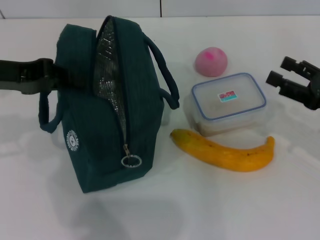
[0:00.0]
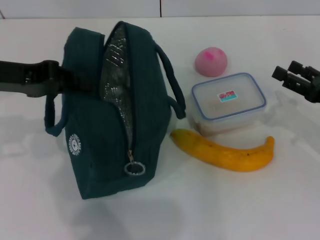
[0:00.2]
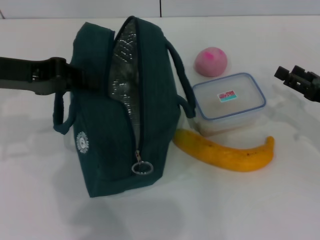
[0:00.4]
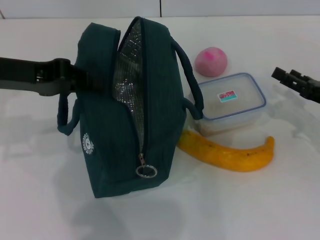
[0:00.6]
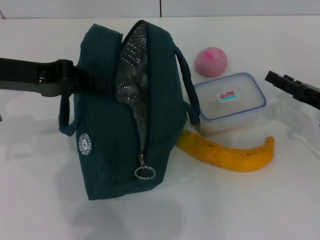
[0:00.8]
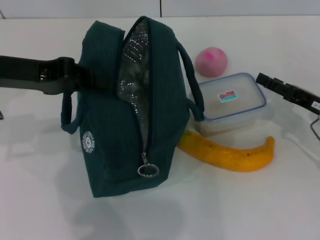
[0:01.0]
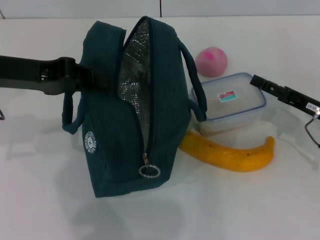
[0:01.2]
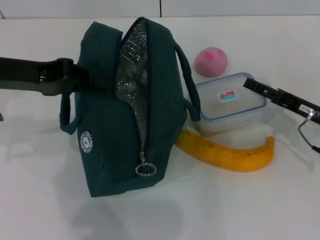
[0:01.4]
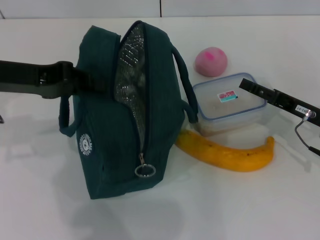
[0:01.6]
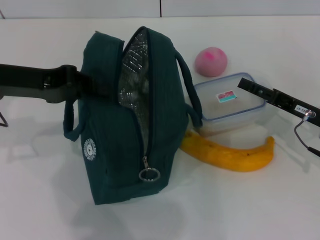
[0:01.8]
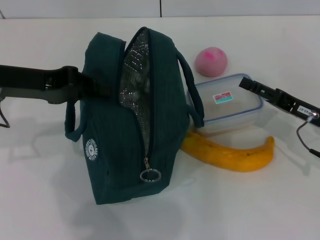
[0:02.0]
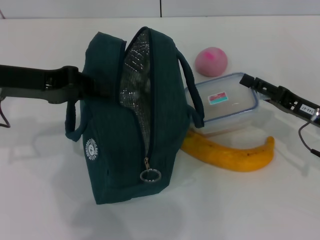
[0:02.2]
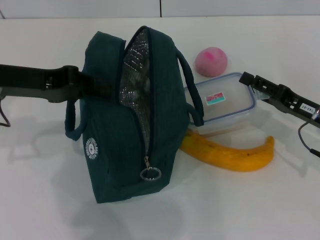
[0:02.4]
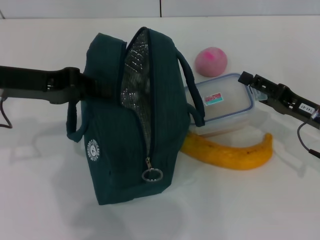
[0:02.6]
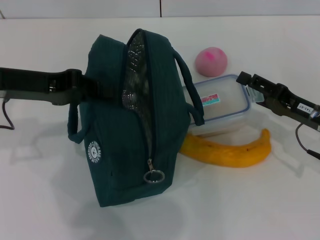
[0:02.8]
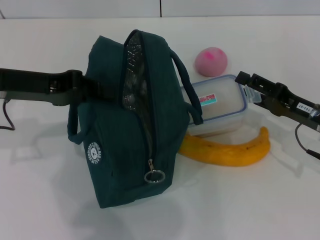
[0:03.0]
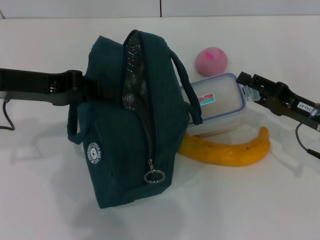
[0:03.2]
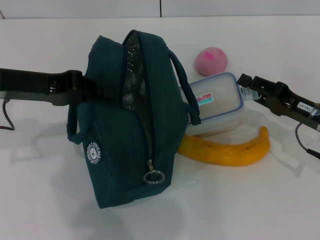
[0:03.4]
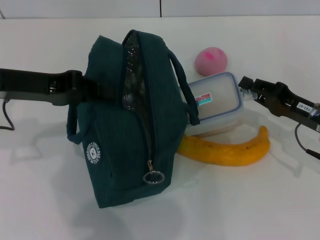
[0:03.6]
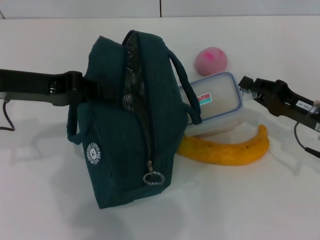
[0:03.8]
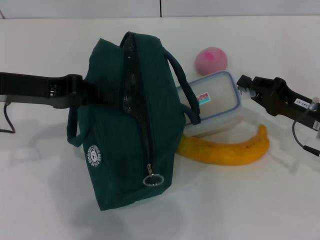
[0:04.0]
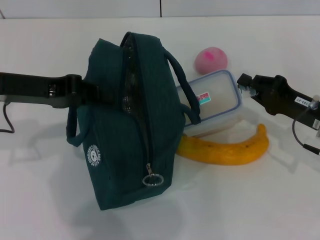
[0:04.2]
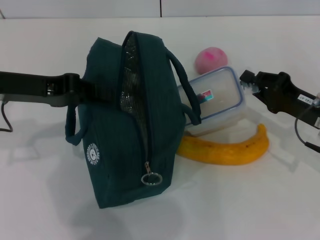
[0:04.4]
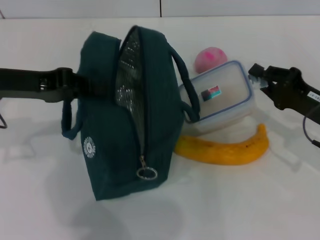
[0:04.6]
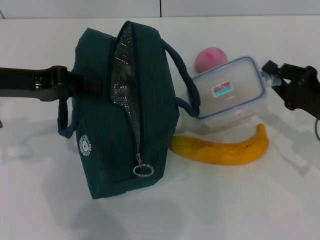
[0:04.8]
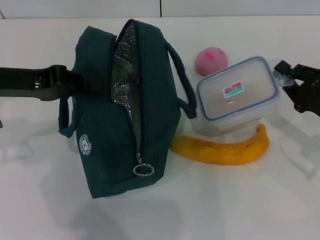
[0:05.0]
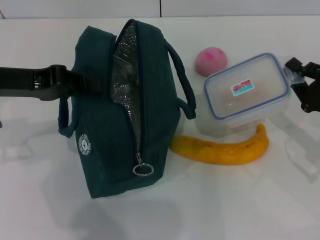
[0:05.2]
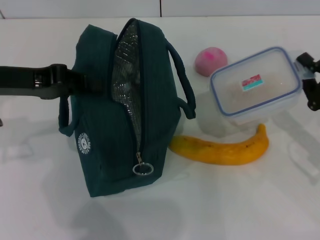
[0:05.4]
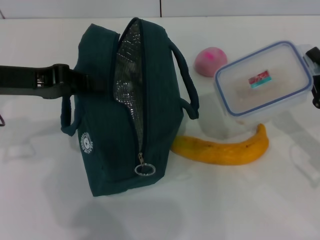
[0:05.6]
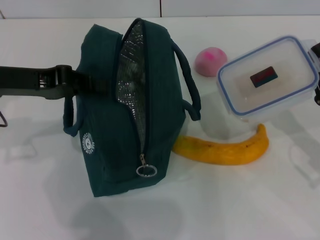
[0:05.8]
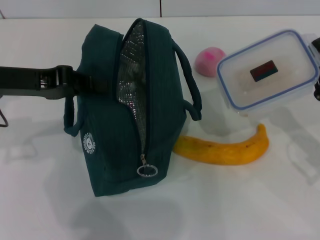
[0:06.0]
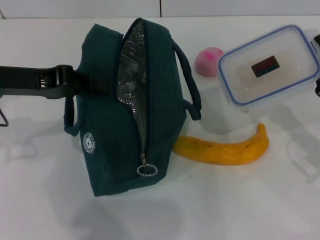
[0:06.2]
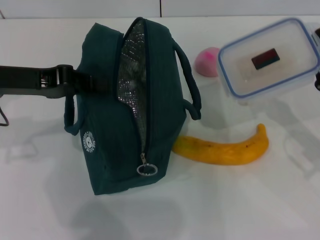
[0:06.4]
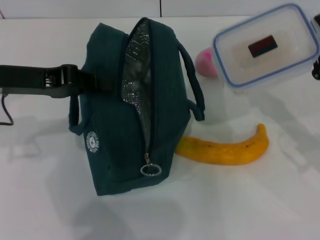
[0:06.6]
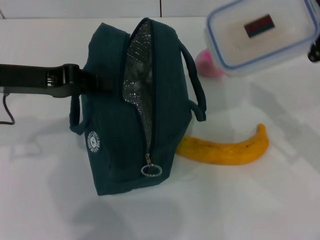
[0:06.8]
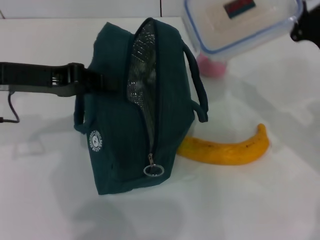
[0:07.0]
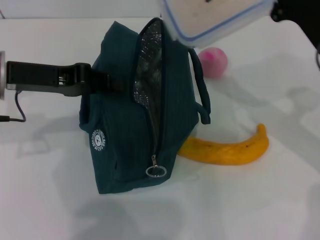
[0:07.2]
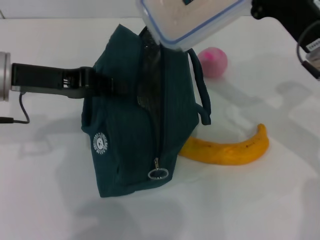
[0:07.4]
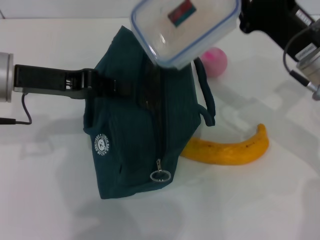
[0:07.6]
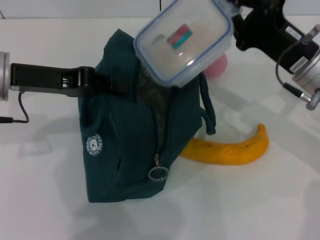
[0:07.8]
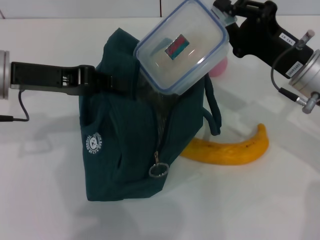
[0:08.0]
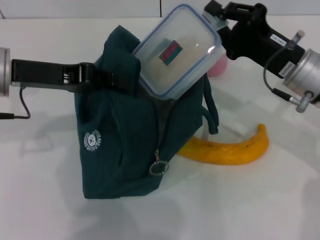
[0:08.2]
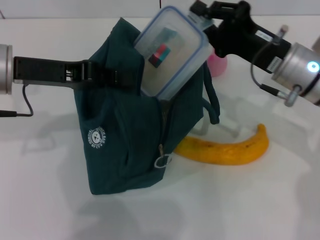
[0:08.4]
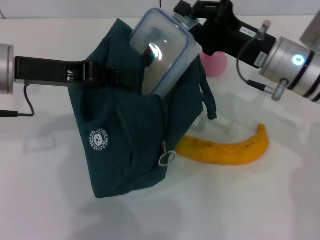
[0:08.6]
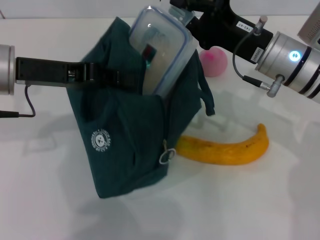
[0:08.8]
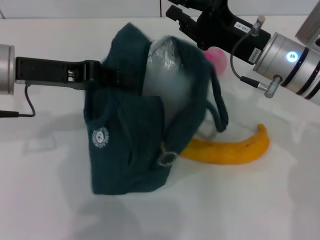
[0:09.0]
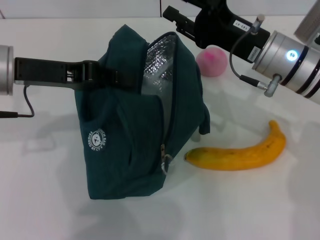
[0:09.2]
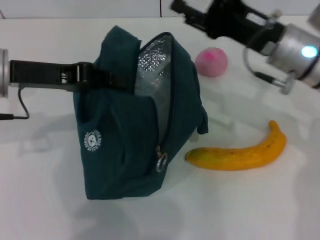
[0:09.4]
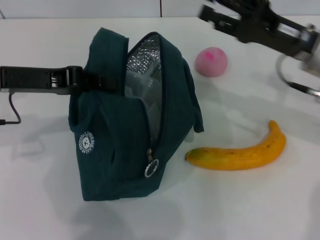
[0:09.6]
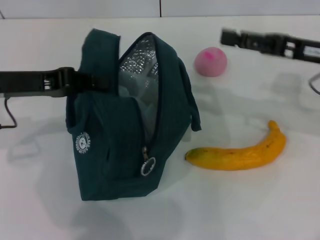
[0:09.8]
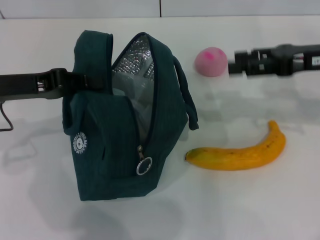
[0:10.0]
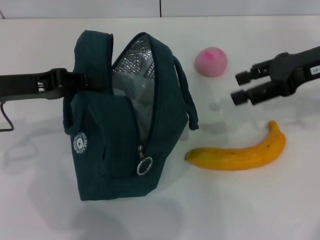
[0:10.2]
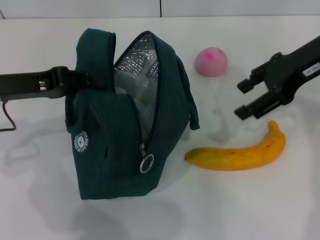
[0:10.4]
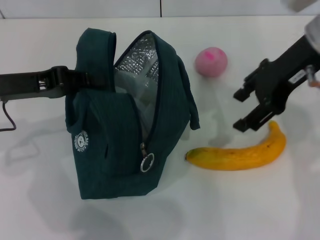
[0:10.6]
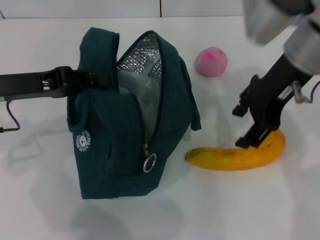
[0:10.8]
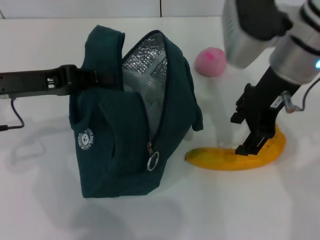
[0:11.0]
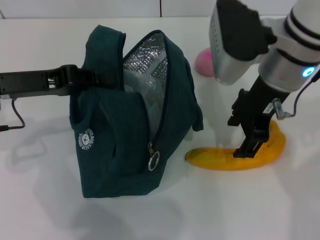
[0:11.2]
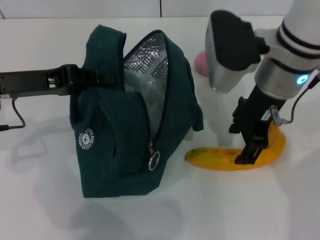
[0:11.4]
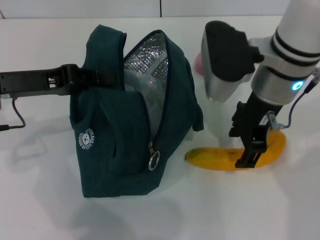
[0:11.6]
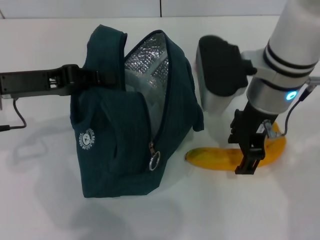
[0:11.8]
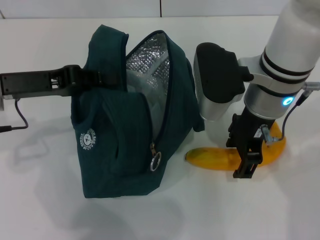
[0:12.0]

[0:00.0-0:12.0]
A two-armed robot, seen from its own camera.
Step, 0:01.0 to 0:04.0: Pick up the lunch box with your right hand.
Step, 0:04.2 to 0:09.2: Place the lunch box into the lunch bag with your right hand.
0:00.0 to 0:01.6: The right gripper changes place by about 5 cm.
0:01.6 to 0:03.0: The grippers stay close to where they were, moving slightly.
0:03.0 to 0:04.4: The right gripper closes.
0:04.4 to 0:06.0: The right gripper is displaced backward by approximately 5 cm.
0:06.0 to 0:07.6: The right gripper goes about 15 cm to the left, forward and upward.
0:07.6 to 0:09.0: The right gripper ends up approximately 5 cm from where it was.
0:09.0 to 0:10.4: The right gripper shifts approximately 10 cm upward and to the right, and opens up, while the left gripper shifts by roughly 5 cm.
0:10.4 to 0:12.0: The right gripper shifts about 15 cm to the left and downward.

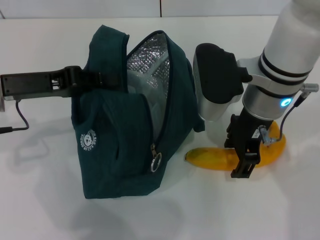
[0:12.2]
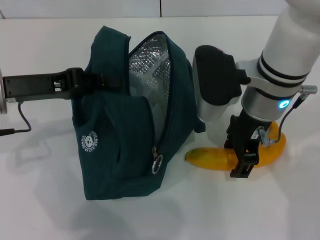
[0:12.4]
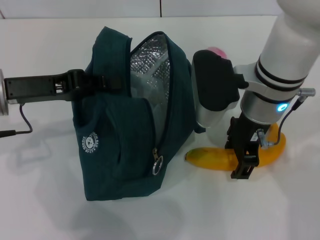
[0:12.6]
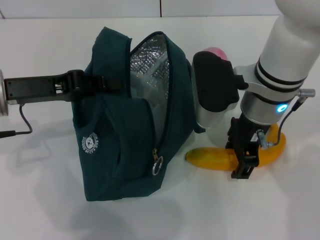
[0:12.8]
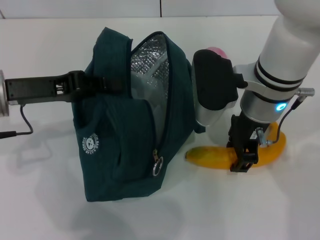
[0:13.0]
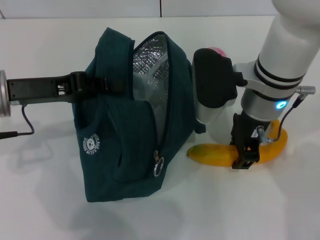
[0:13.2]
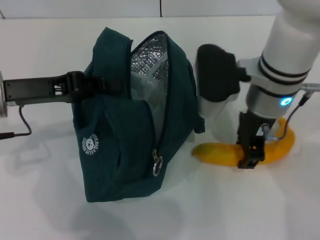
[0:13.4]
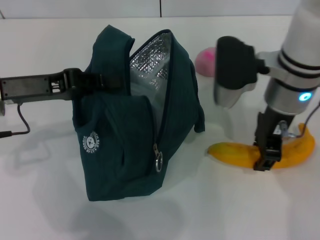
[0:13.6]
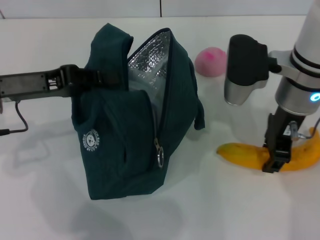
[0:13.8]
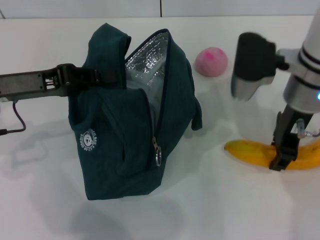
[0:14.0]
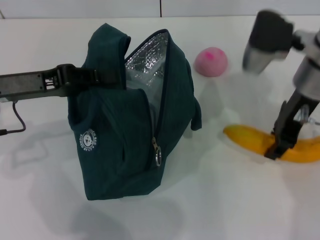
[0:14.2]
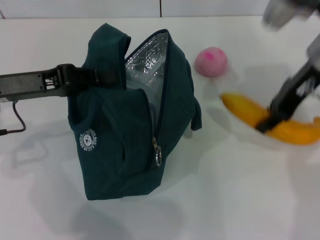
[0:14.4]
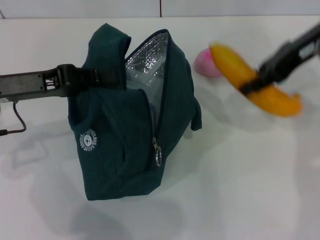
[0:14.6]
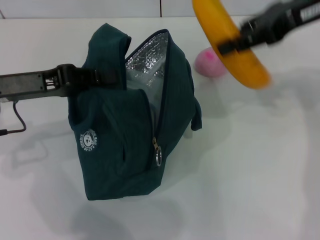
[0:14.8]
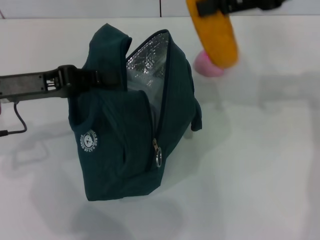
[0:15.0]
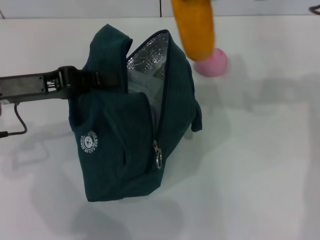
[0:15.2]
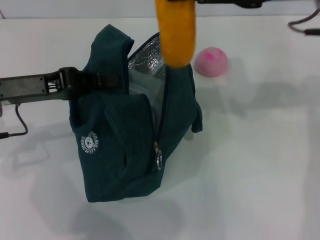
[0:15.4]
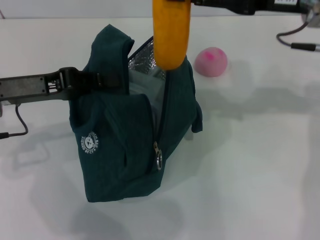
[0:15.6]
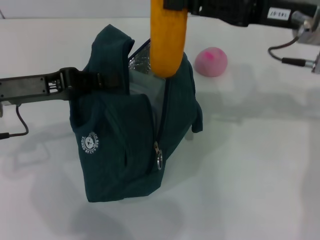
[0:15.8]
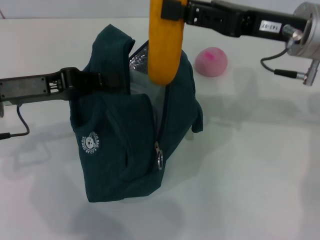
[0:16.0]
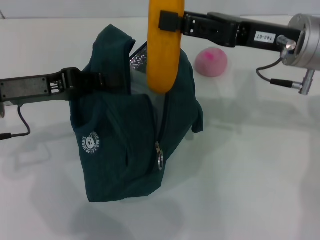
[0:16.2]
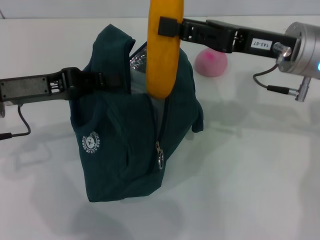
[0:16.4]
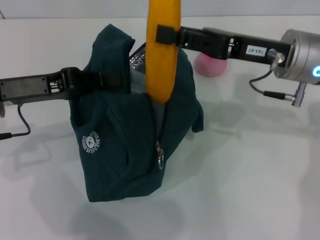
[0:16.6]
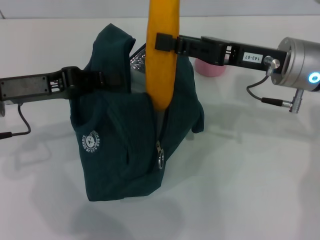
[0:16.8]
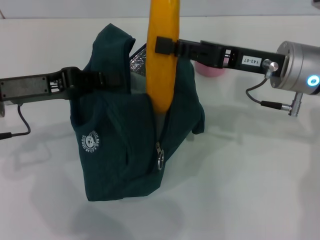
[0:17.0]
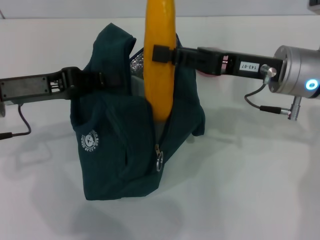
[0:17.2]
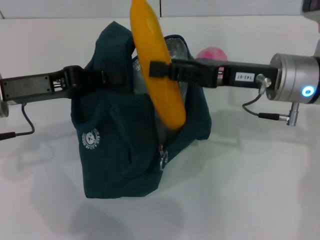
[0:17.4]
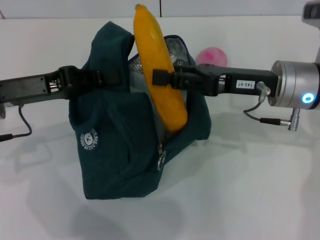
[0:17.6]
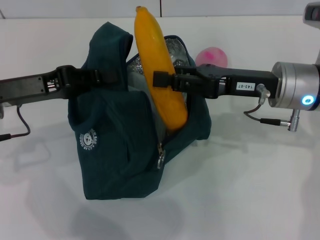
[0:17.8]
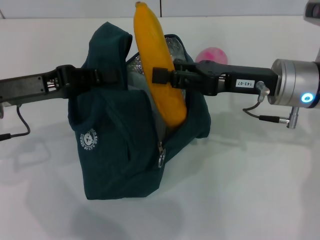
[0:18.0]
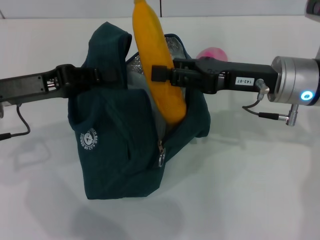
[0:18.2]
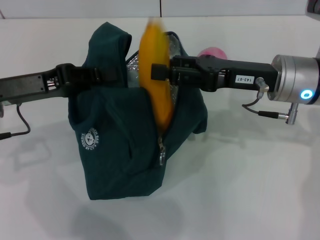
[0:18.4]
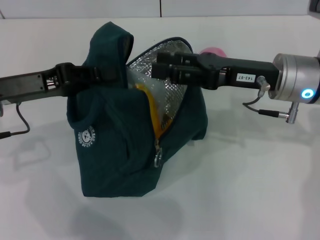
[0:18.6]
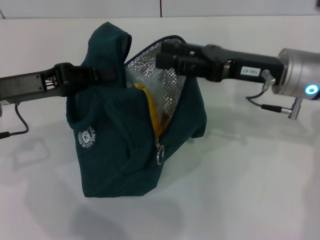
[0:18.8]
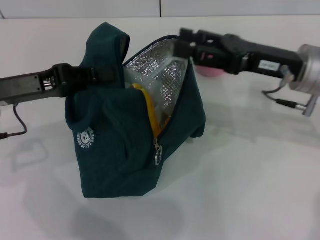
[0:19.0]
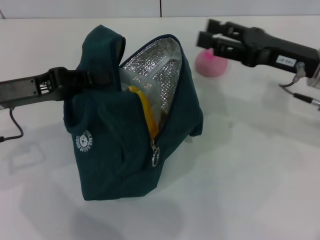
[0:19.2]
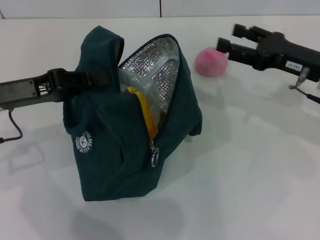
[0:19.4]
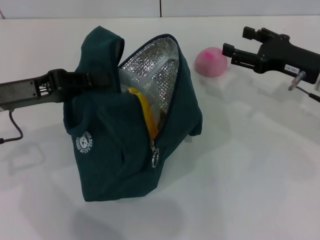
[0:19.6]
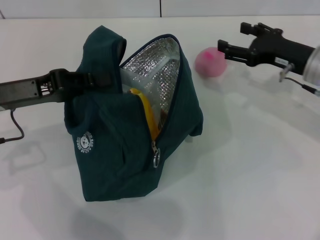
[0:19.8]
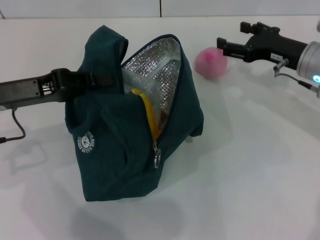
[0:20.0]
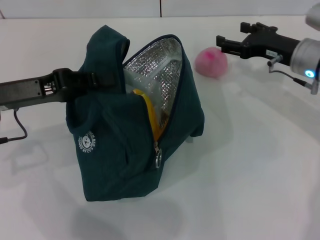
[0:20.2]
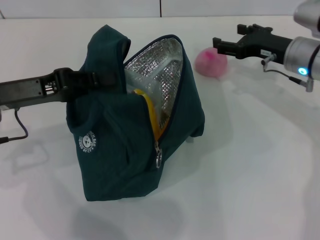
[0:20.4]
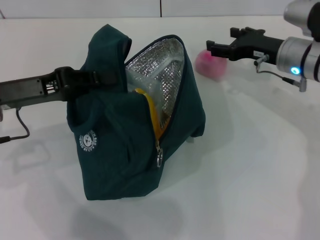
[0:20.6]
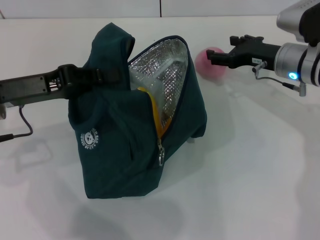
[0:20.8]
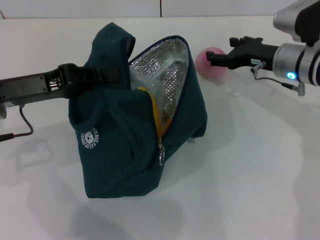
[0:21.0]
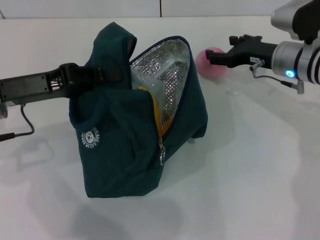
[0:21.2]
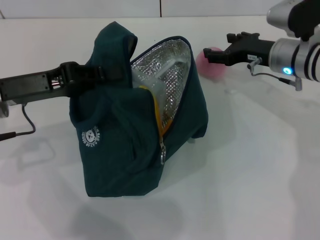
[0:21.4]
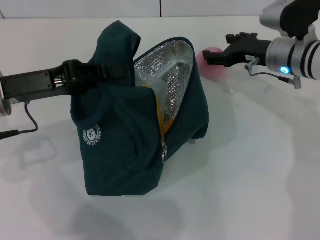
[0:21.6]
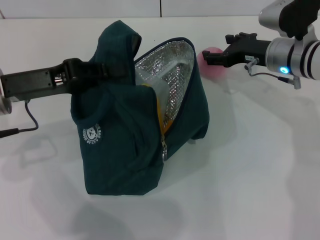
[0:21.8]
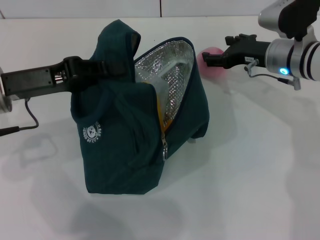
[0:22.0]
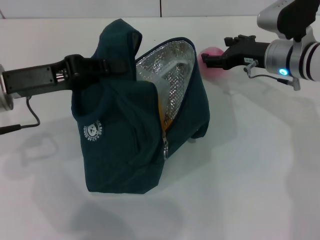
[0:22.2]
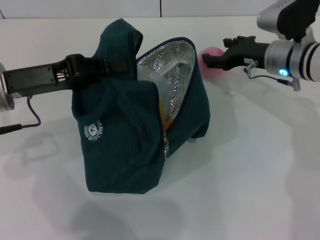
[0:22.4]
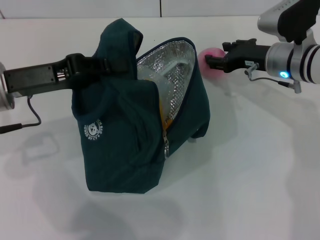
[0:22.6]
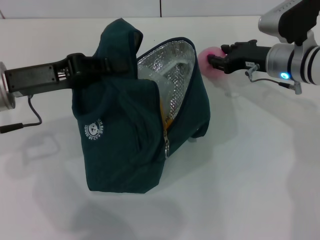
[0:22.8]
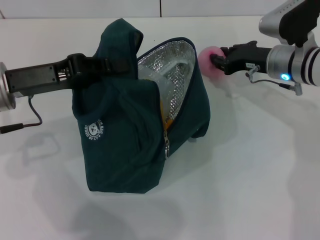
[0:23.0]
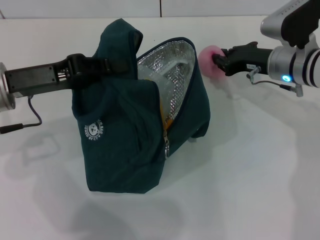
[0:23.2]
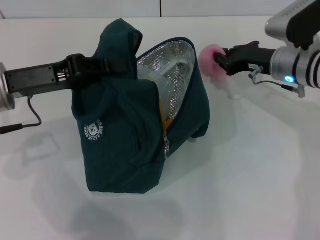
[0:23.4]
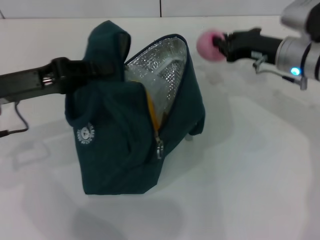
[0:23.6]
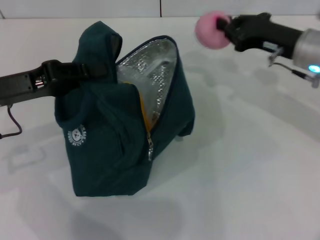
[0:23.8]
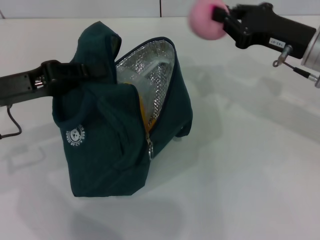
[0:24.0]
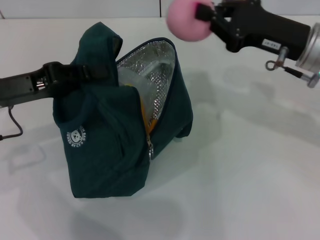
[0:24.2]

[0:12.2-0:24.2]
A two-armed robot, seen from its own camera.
Step, 0:13.0 to 0:18.6: Put the banana into the lunch bag with your right hand.
Step, 0:18.8 to 0:23.0: Grab the peach with your right hand.
0:12.2 to 0:13.8: The right gripper closes.
0:13.8 to 0:15.2: The right gripper moves upward and to the right, roughly 15 cm.
0:15.2 to 0:16.6: The right gripper heads downward, covering roughly 15 cm.
0:16.6 to 0:18.2: The grippers make only small movements.
0:18.2 to 0:19.8: The right gripper is displaced to the right by approximately 5 cm, and opens.
0:19.8 to 0:21.2: The right gripper ends up about 5 cm from where it was.
0:21.2 to 0:22.6: The grippers move only a little.
0:22.6 to 0:24.2: The right gripper is displaced backward and upward by approximately 10 cm, and closes its fingers.
